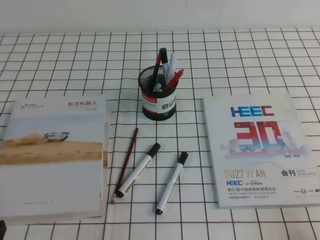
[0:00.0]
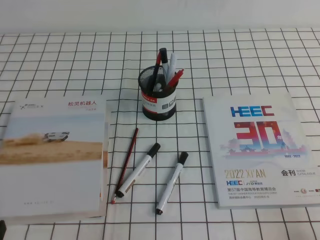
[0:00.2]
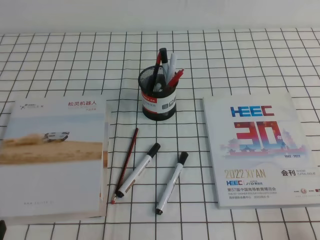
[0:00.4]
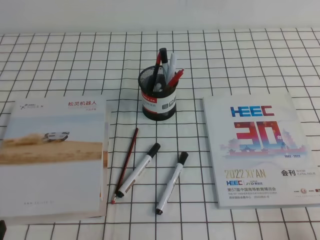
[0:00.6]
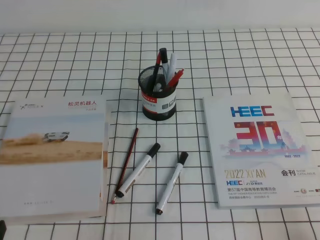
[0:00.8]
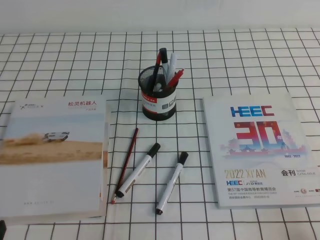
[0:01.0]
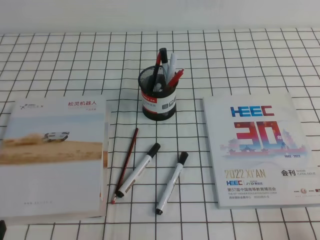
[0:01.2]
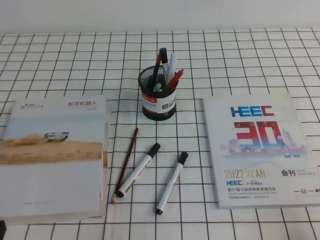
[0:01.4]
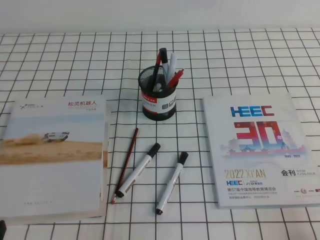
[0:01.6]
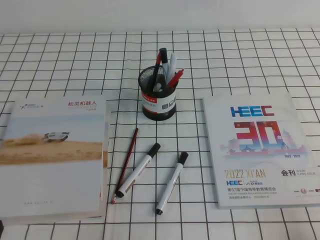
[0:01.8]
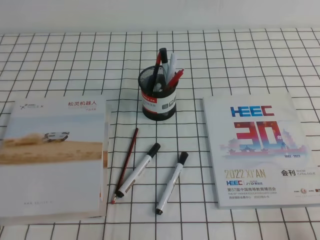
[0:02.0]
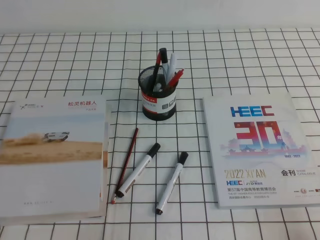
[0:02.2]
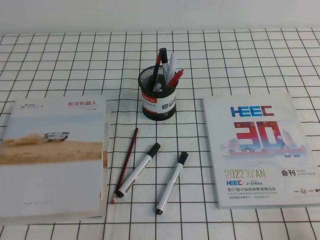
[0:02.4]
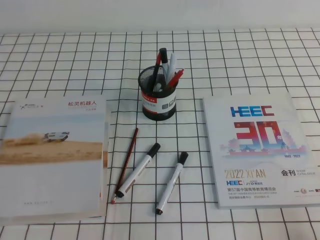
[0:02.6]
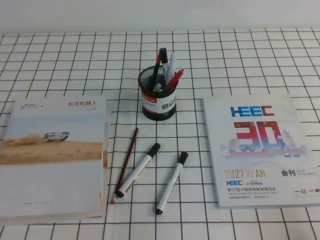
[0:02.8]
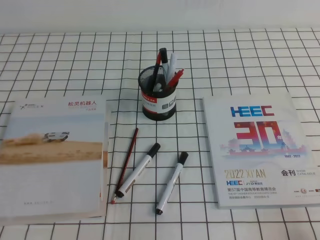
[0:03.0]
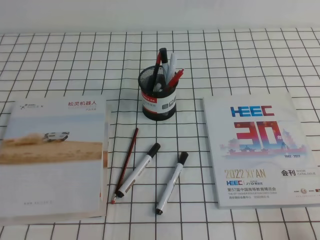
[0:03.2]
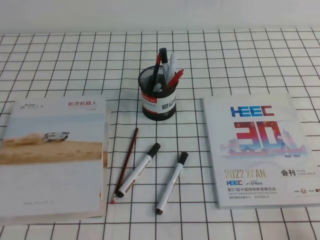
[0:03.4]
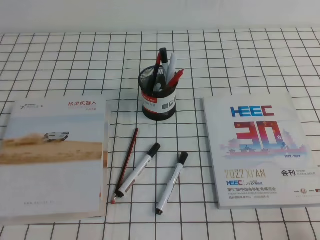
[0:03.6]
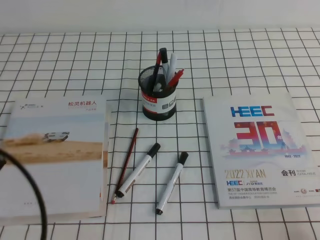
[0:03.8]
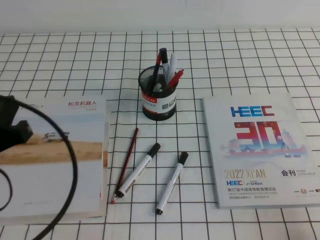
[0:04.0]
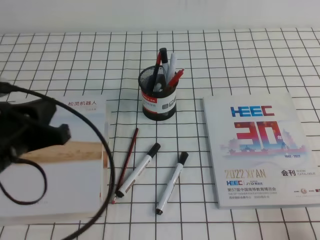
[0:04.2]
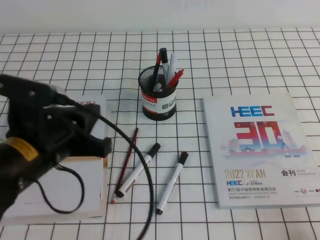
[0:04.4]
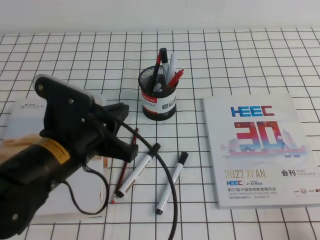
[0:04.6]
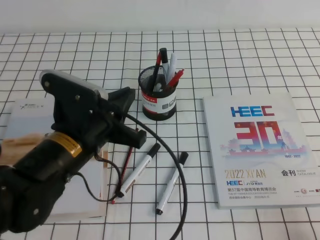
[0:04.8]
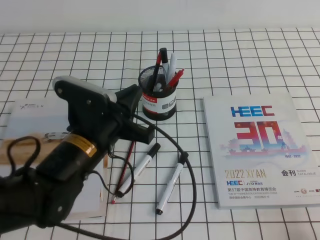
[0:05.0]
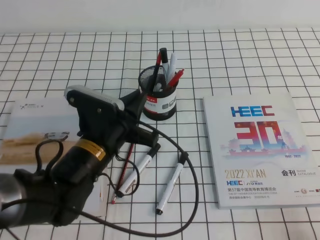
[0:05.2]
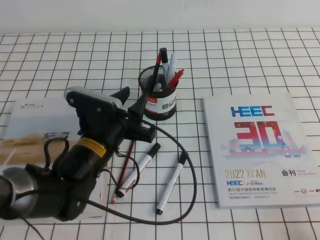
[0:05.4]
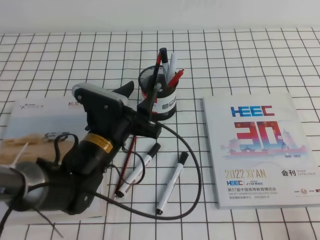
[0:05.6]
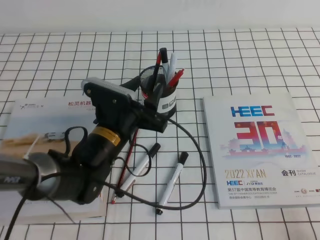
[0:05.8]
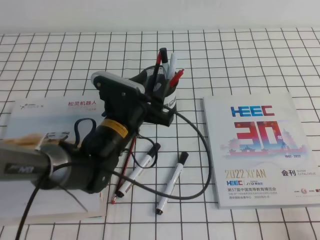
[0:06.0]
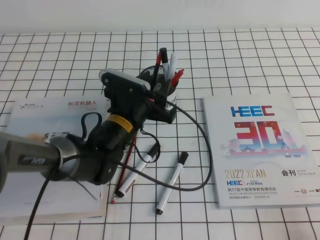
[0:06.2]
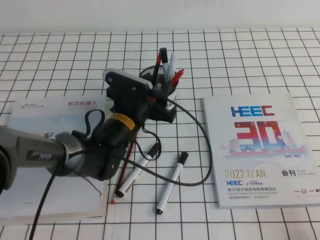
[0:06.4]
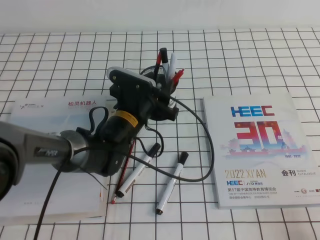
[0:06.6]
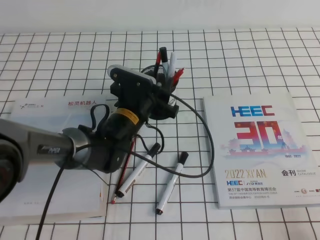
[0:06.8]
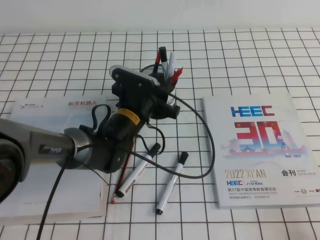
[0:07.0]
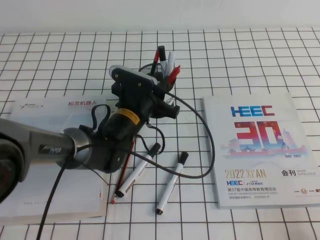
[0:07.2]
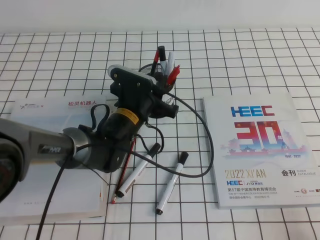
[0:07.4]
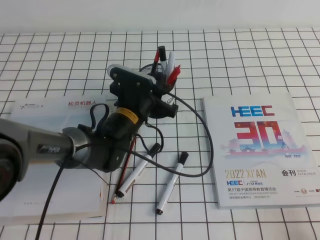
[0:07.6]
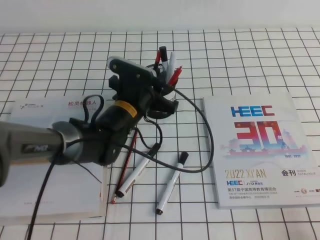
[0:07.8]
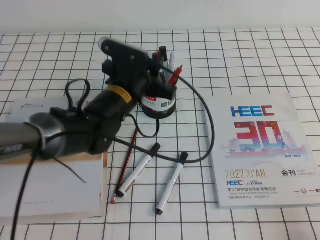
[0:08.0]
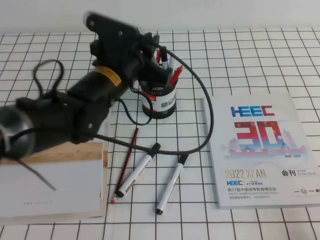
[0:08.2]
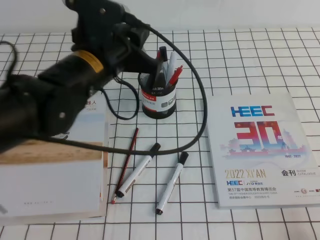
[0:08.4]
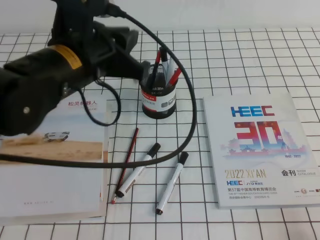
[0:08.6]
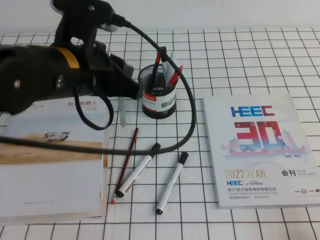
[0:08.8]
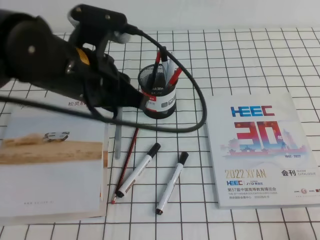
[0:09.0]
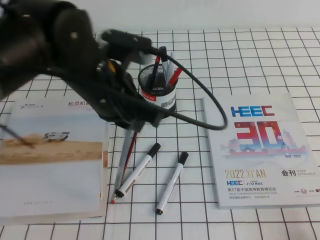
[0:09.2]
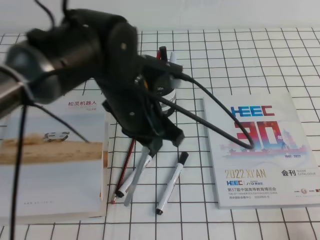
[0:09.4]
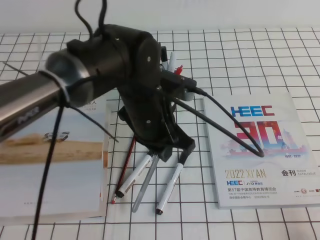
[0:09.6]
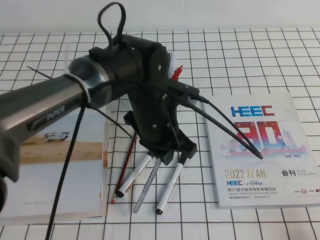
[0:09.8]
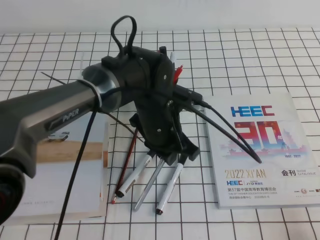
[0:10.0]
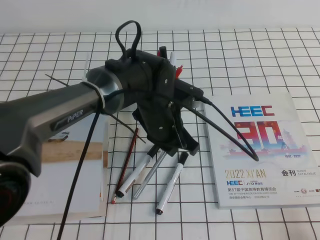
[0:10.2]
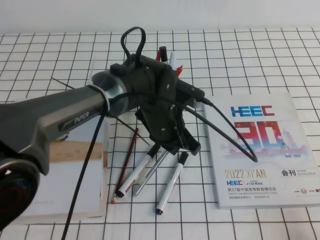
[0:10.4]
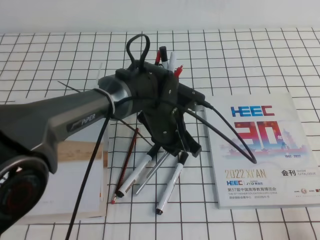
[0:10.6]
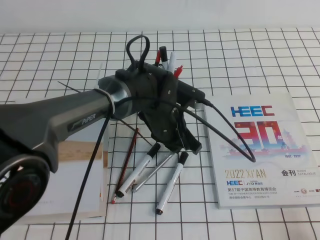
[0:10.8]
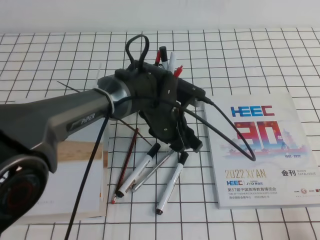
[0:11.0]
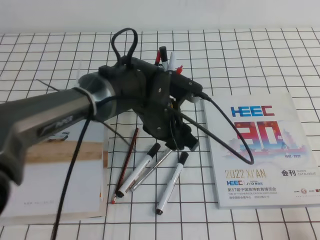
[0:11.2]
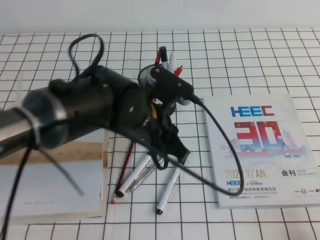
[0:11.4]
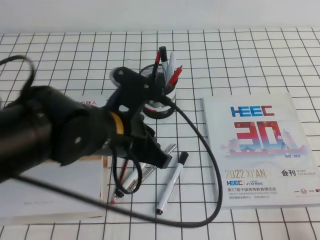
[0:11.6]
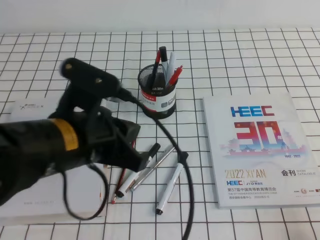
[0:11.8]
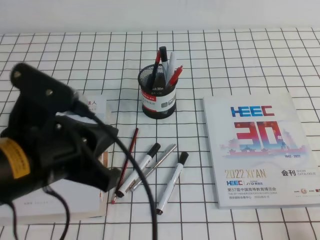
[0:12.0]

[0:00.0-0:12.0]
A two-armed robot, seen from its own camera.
0:00.0 to 0:01.6: Both grippers stay put.
0:03.0 to 0:04.4: The left gripper moves forward, to the right and upward, approximately 20 cm.
0:04.4 to 0:06.0: The left gripper moves forward, to the right and downward, approximately 20 cm, and opens up.
0:06.0 to 0:07.6: The left gripper moves some 5 cm, and closes up.
0:07.6 to 0:09.0: The left gripper shifts about 20 cm upward and backward.
0:09.0 to 0:10.4: The left gripper travels downward, to the right and forward by some 20 cm.
0:10.4 to 0:12.0: The left gripper travels backward, to the left and upward by roughly 25 cm, and opens, then closes once more.

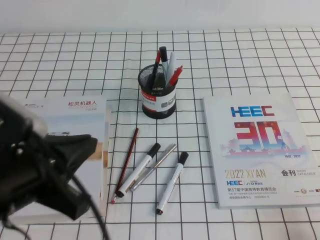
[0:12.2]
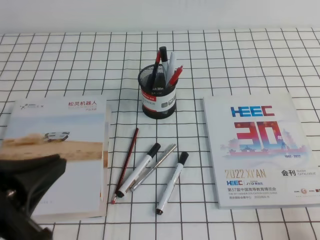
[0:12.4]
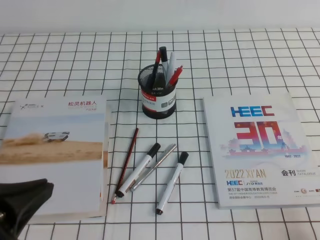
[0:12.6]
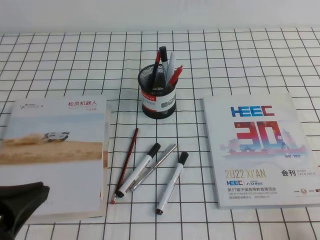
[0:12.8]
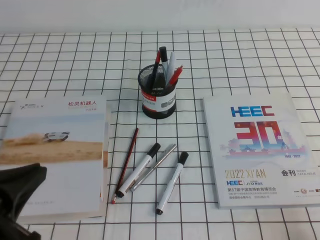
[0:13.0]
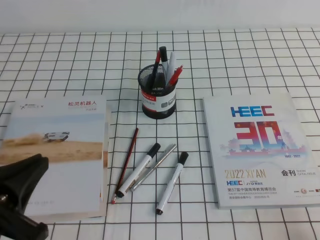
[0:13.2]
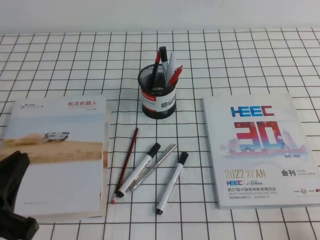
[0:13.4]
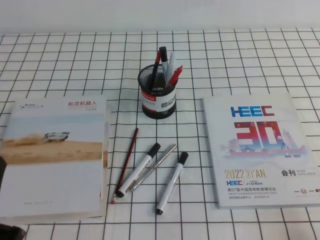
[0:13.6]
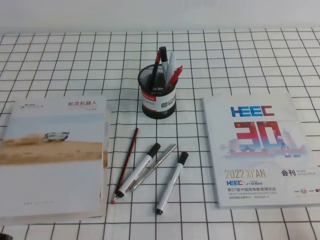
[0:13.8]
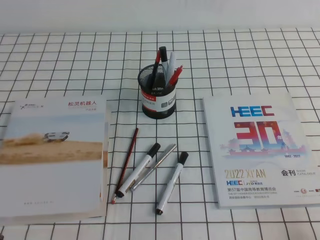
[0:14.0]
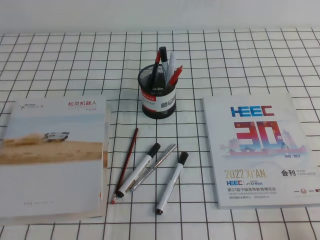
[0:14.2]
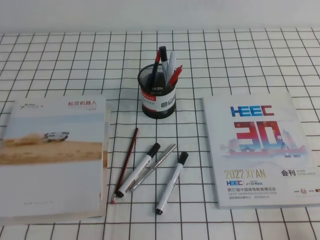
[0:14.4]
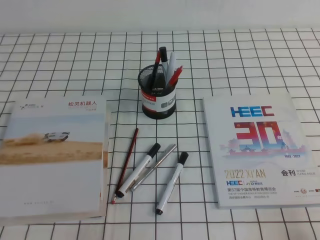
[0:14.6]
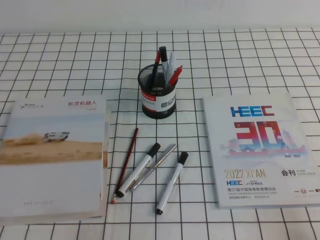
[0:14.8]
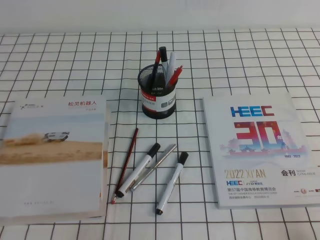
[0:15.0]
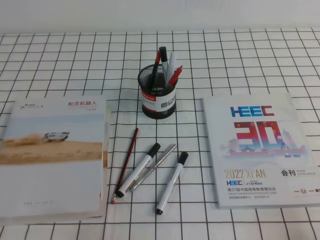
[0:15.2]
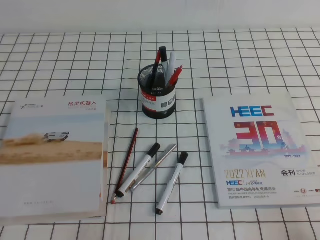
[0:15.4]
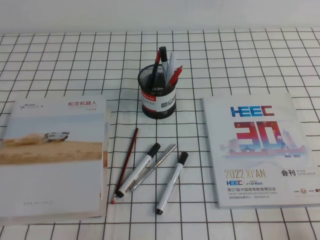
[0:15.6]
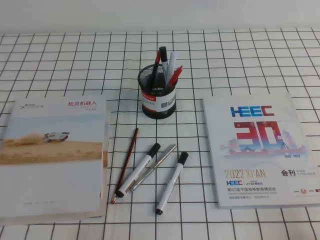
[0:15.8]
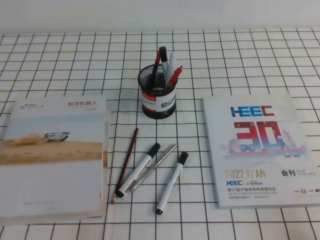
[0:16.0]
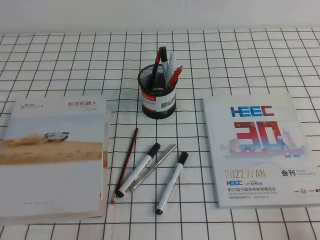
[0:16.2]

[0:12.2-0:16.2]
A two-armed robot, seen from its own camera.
Step, 0:12.2 to 0:16.2: Pick up the pen from the pen holder.
0:12.2 to 0:13.6: The left gripper shifts some 10 cm downward and to the left.
0:13.6 to 0:14.8: The left gripper travels downward by roughly 5 cm.
0:14.8 to 0:16.2: The two grippers keep their place.

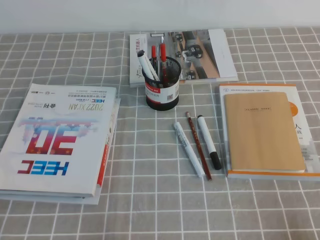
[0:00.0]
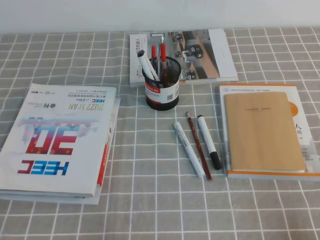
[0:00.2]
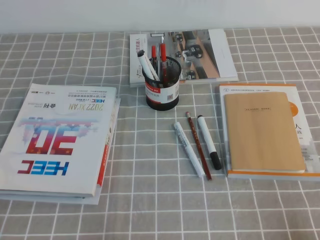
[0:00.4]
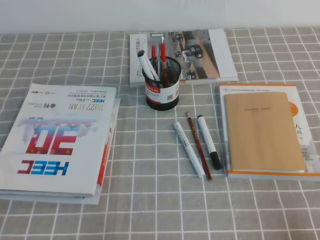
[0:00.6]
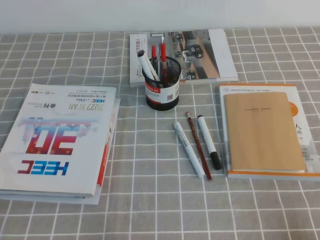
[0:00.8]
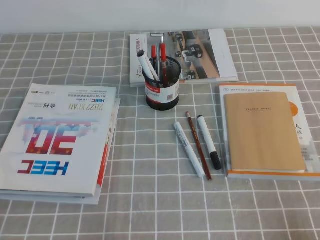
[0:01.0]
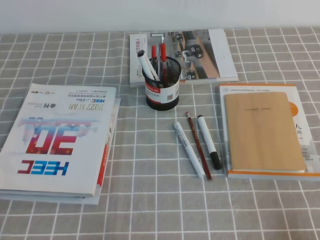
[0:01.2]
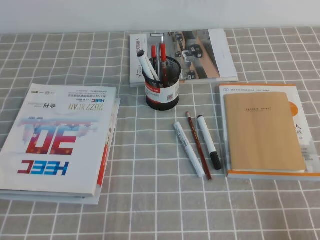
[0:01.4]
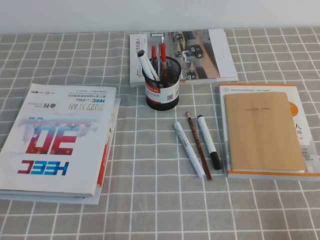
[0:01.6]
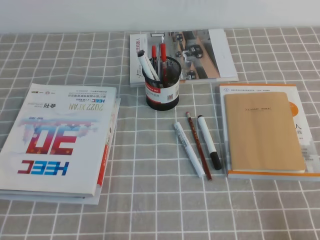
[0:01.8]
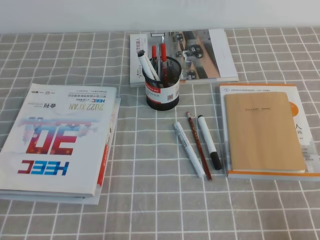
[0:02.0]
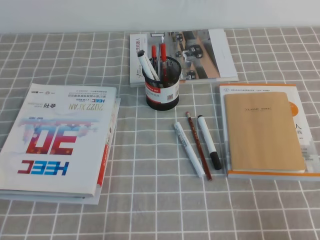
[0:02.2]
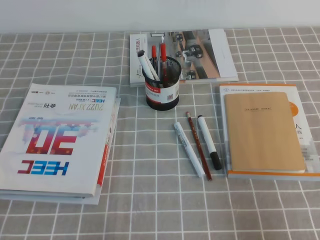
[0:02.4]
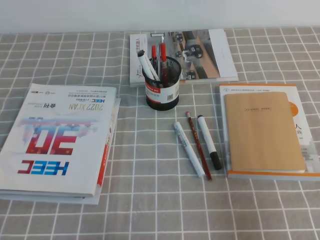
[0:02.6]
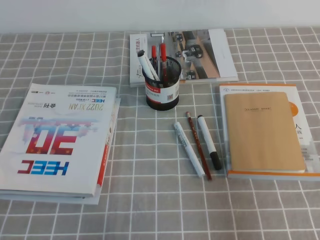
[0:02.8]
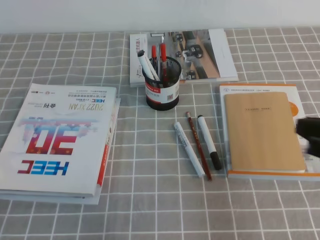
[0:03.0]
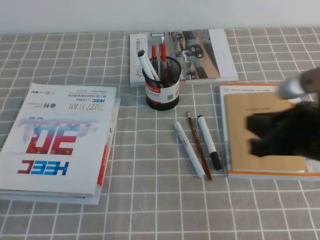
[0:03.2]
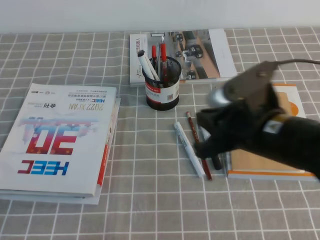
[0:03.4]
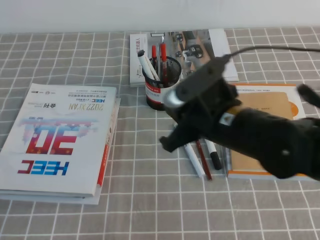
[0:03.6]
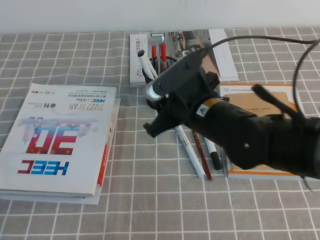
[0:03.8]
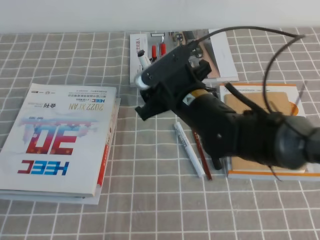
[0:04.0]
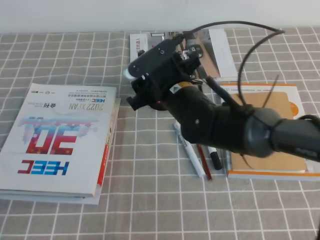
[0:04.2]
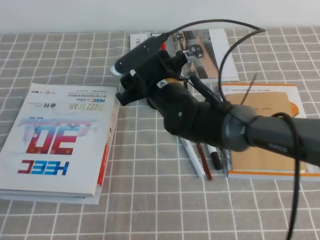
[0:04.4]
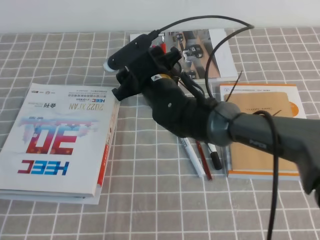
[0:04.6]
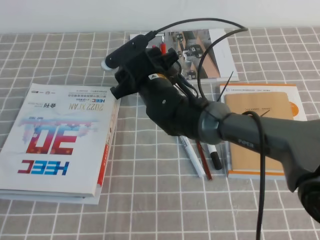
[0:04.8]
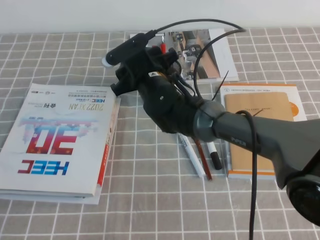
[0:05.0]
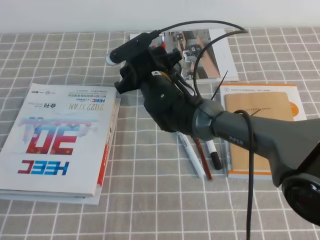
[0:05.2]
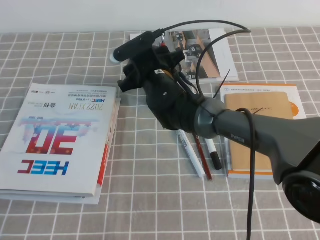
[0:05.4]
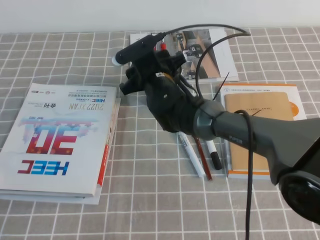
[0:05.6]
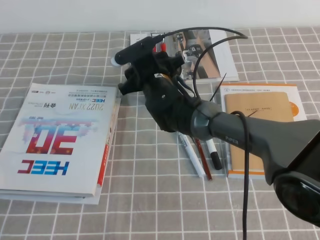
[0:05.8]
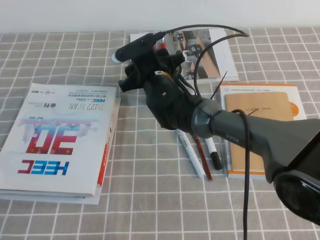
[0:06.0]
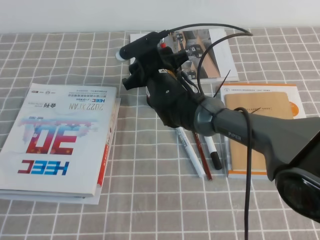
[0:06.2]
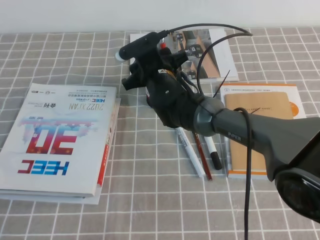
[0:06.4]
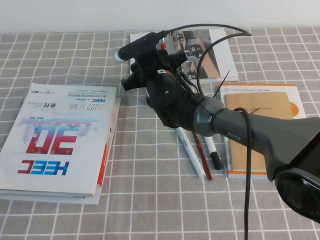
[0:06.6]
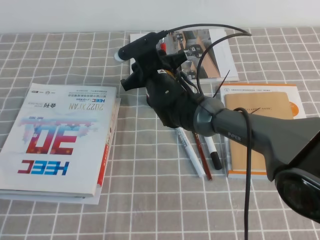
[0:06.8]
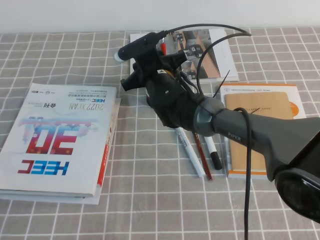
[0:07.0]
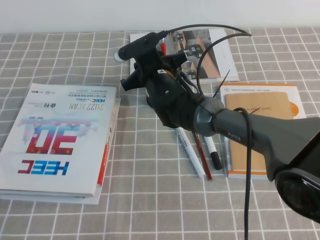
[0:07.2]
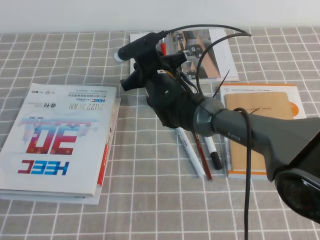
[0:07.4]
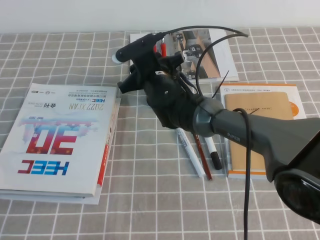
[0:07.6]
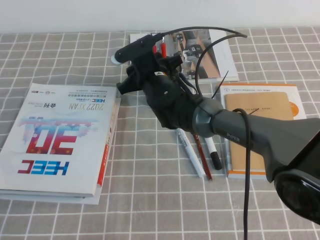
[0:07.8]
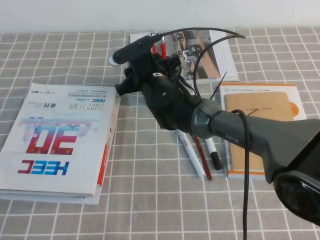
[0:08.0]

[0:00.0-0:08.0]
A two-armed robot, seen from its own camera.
0:01.6 to 0:03.2: The right gripper travels forward, to the left and upward by about 20 cm.
0:03.2 to 0:04.8: The right gripper travels to the left and forward by approximately 30 cm, and opens its fingers.
0:04.8 to 0:06.4: There are only small adjustments of the grippers.
0:06.4 to 0:08.0: Both grippers stay about where they are.
